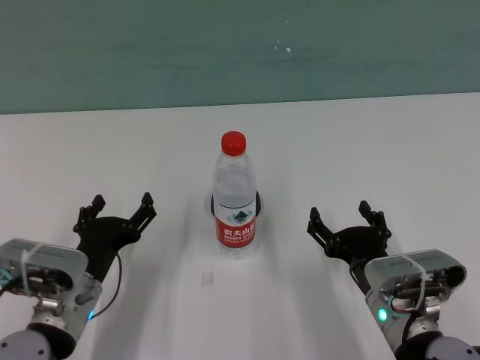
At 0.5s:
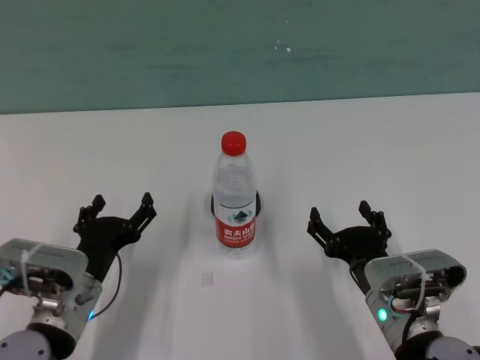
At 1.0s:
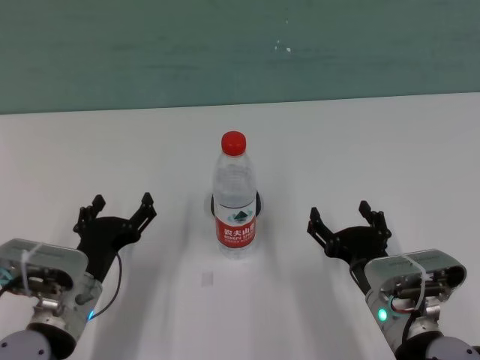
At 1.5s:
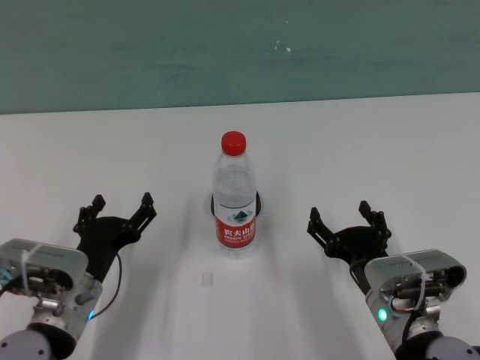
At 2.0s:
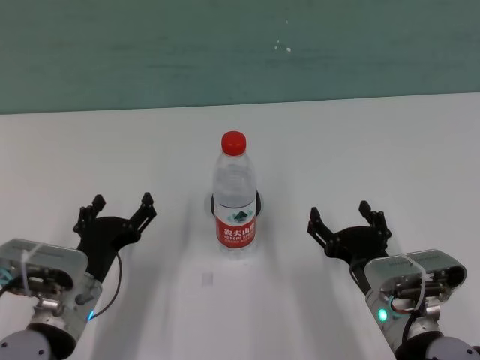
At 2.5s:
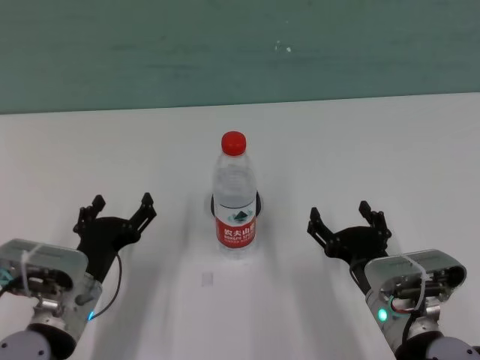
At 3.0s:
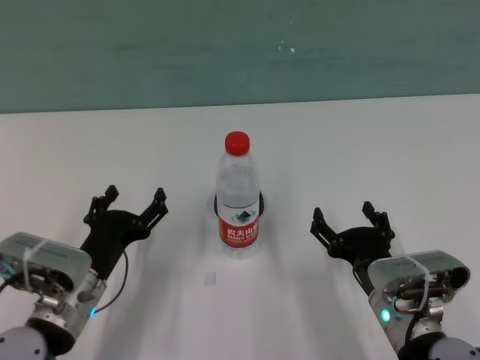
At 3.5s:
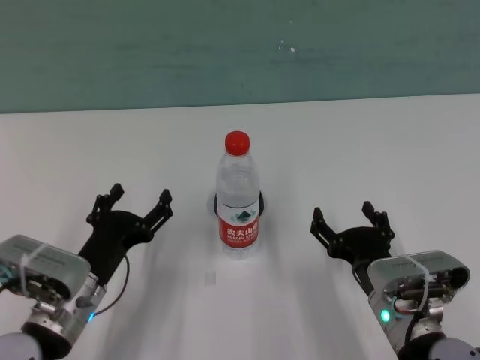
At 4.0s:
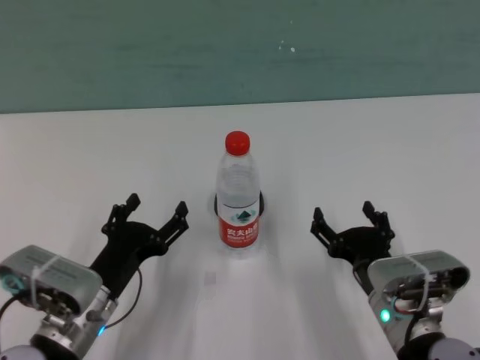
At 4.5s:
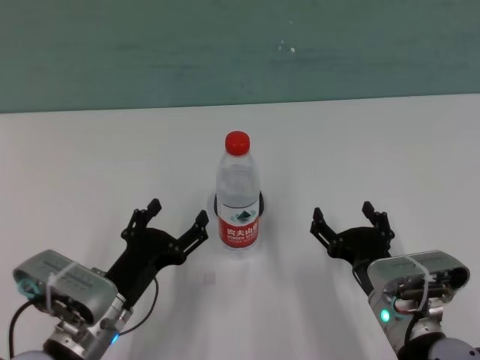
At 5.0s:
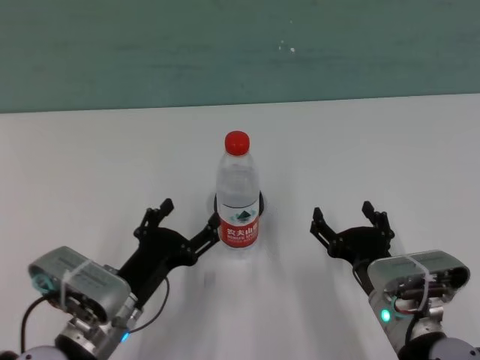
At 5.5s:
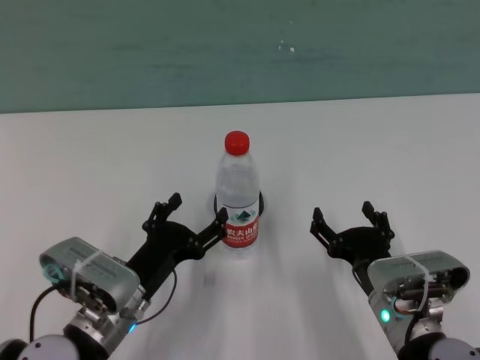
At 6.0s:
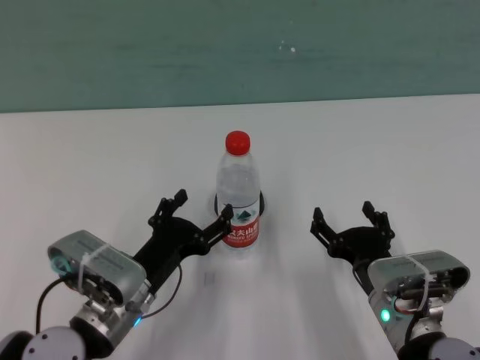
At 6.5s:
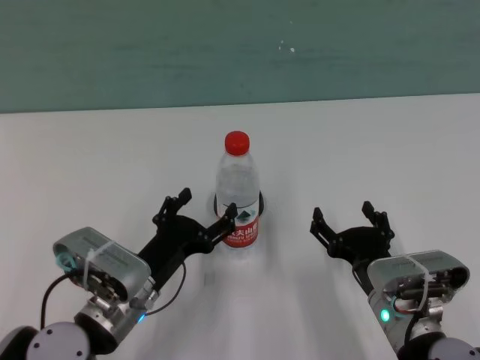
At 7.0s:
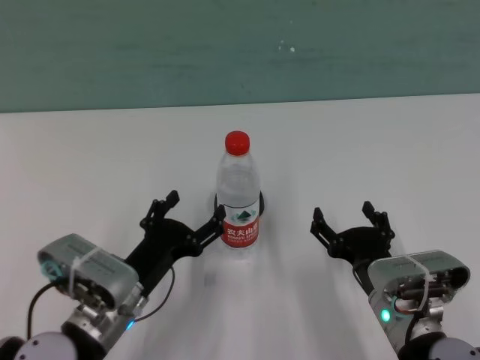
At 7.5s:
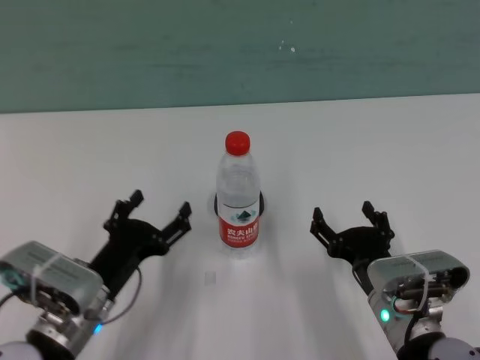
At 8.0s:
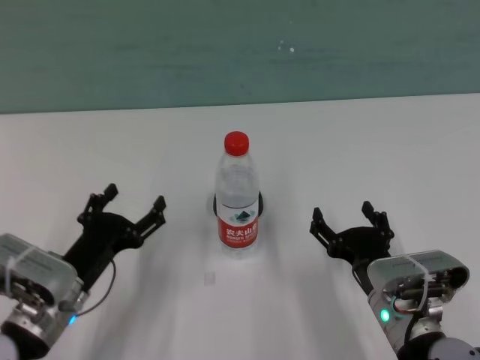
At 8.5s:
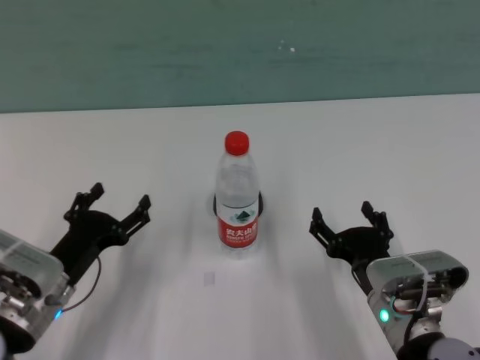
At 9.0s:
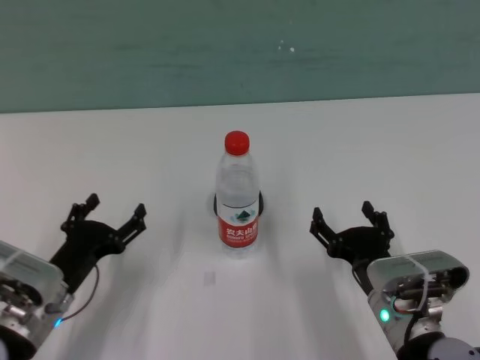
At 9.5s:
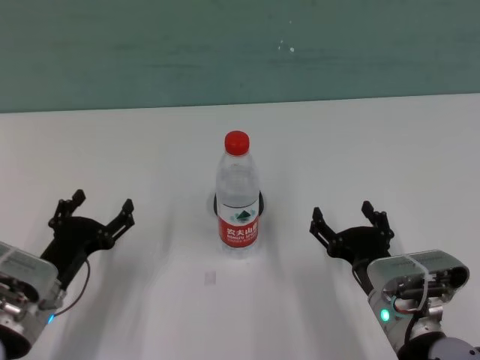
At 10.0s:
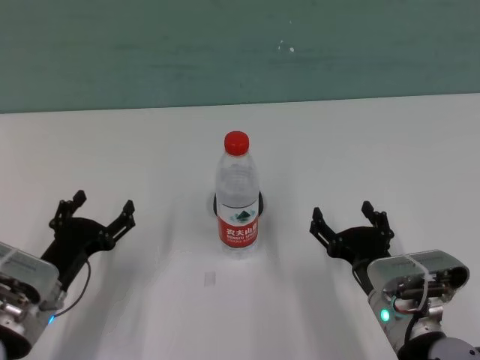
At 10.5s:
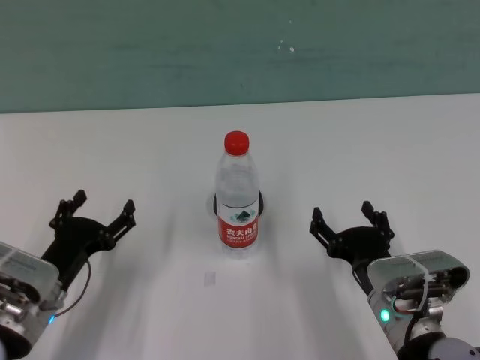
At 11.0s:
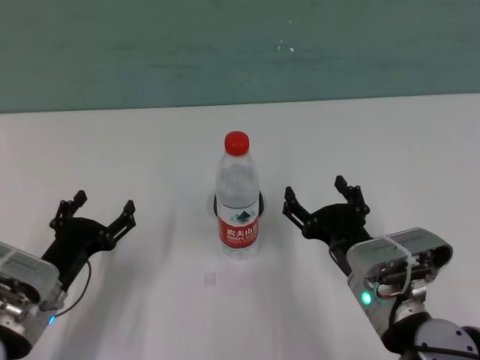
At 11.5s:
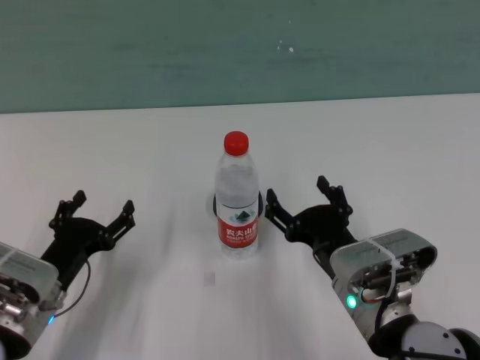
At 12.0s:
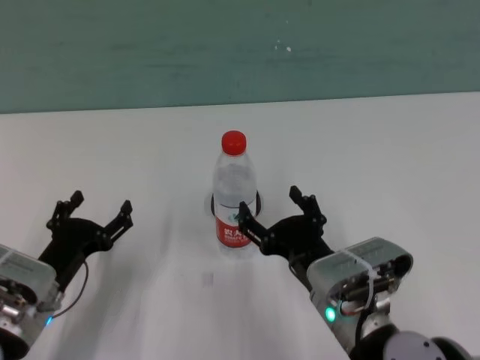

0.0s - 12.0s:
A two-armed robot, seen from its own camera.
Task of the whole recording: after removing the water bottle from the table, press the button.
Step, 0.0s - 7.0s: Touch the bottle with left gripper.

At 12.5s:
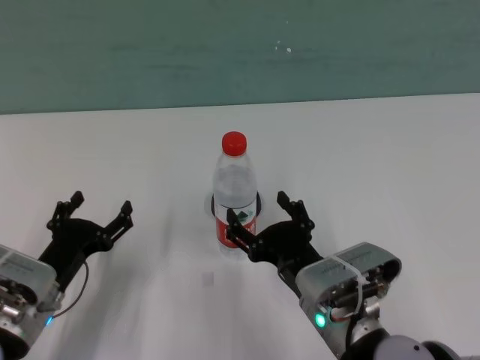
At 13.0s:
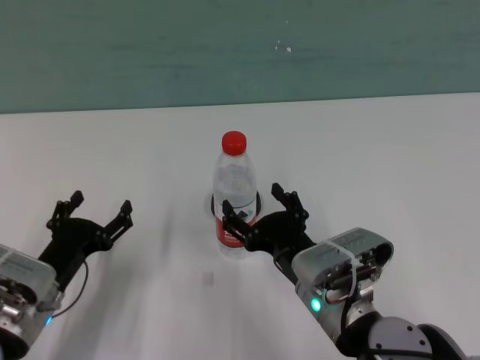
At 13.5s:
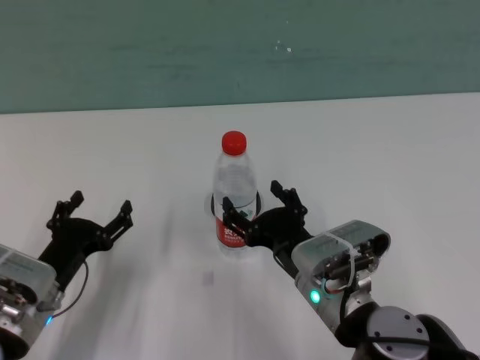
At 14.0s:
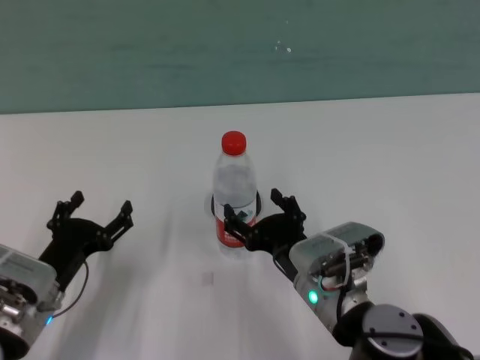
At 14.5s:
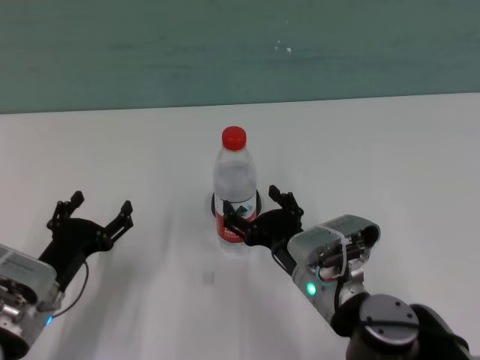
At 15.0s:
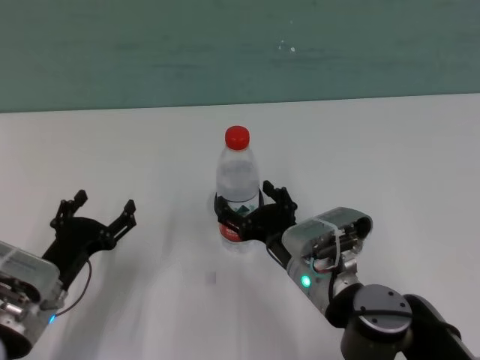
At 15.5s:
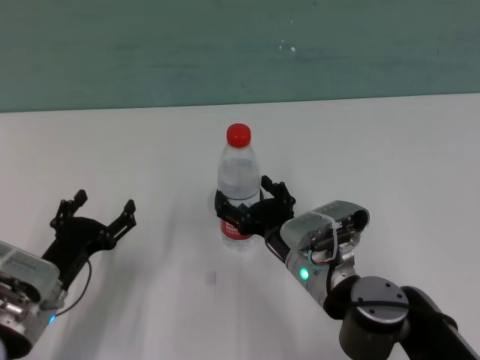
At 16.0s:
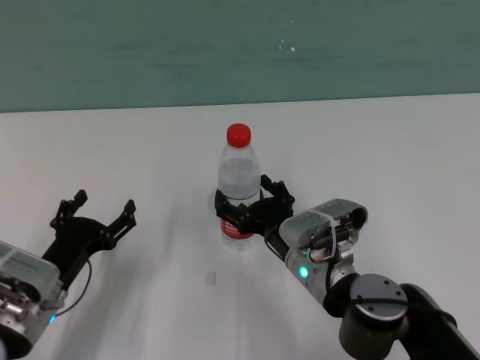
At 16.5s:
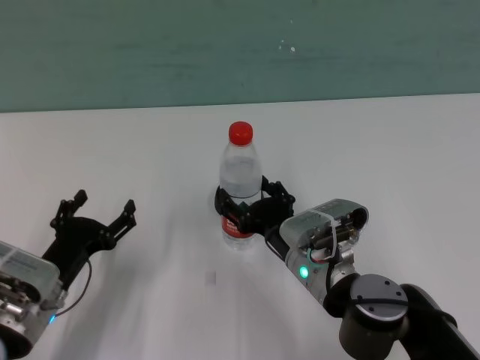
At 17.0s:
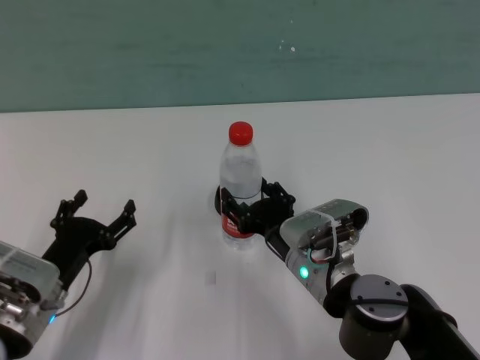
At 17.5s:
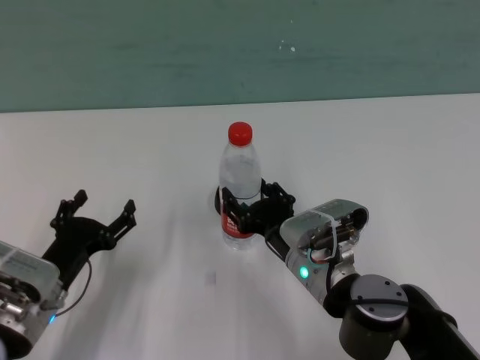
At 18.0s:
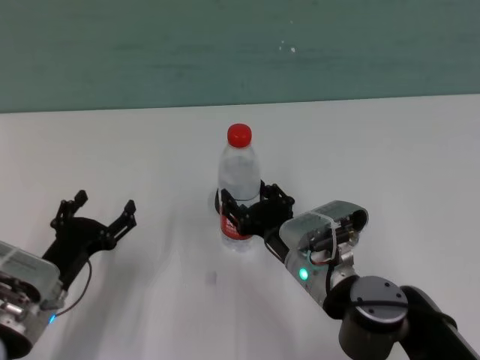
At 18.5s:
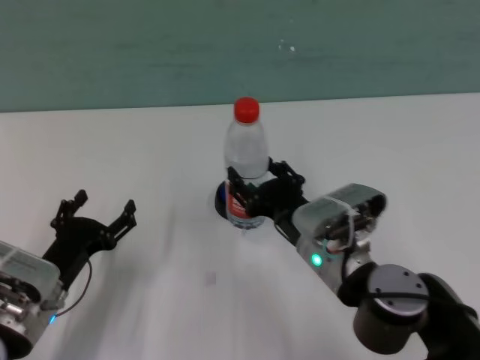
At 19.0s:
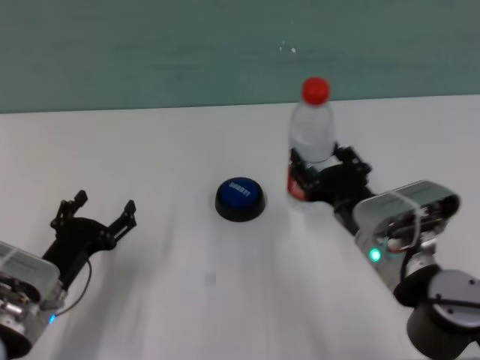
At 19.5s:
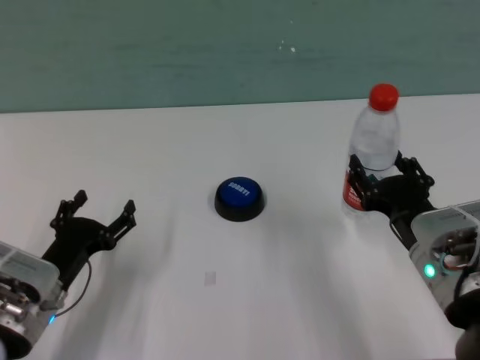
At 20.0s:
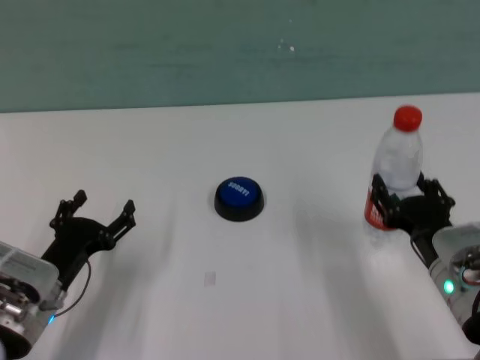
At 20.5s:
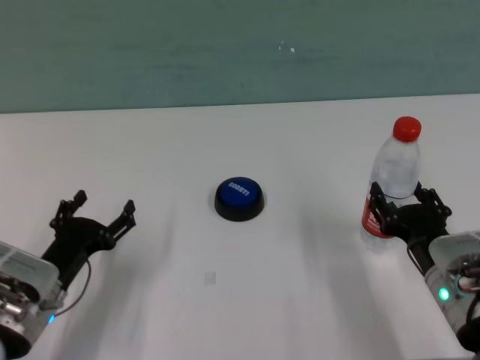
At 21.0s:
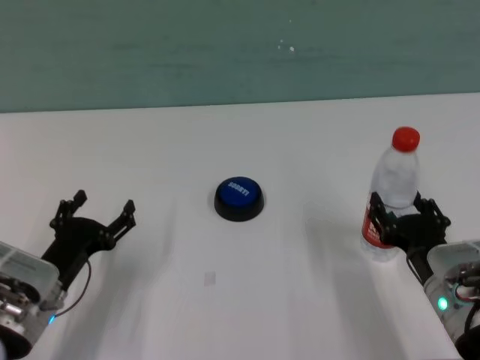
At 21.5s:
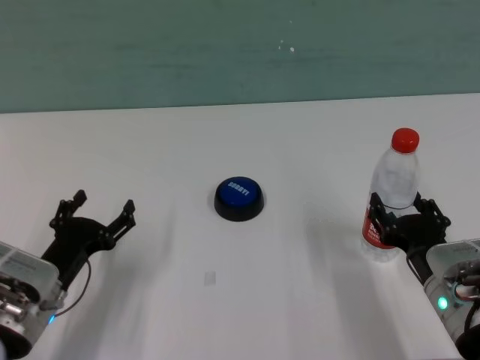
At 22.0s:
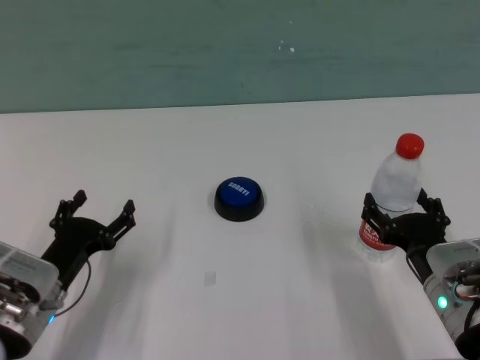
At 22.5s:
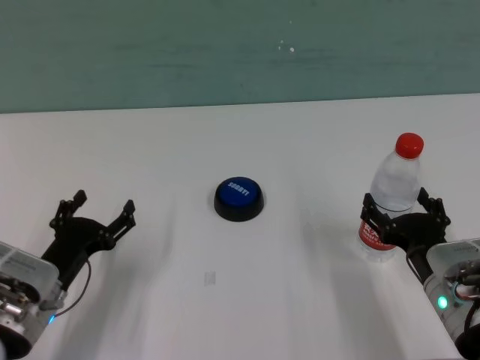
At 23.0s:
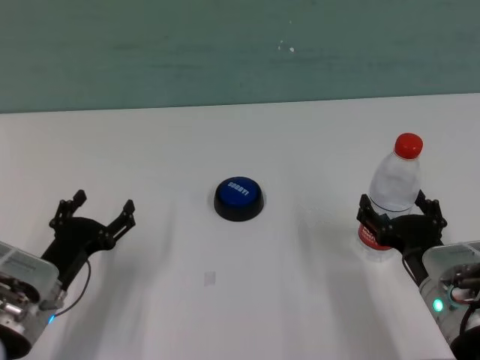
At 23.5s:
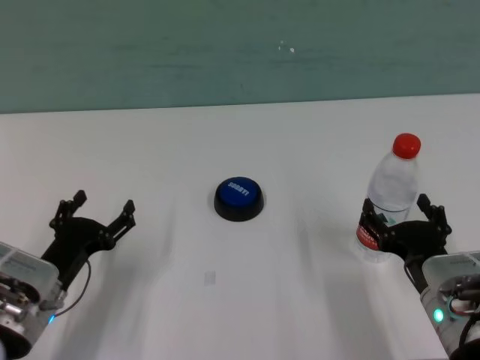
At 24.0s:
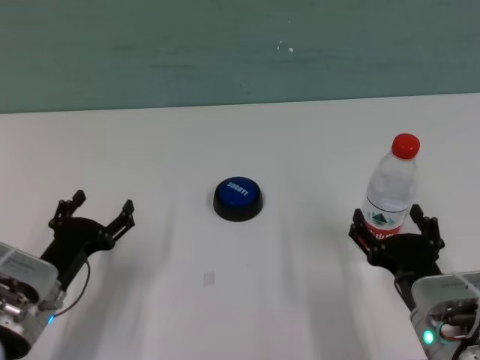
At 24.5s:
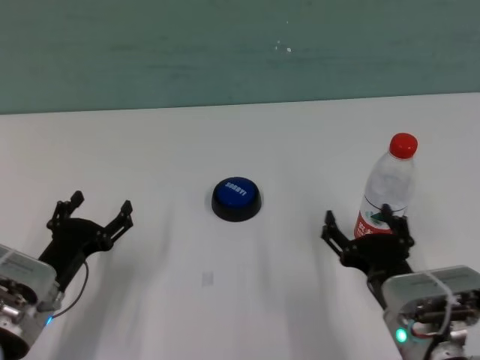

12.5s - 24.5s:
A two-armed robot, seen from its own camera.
Task of the whole recording: after removing the water bottle from the table, press the button.
Step, 12.5s - 22.0s: Move the bottle away with right gripper.

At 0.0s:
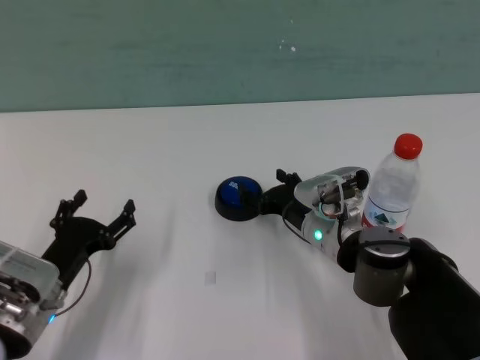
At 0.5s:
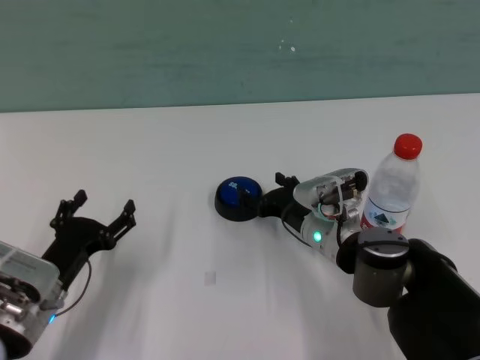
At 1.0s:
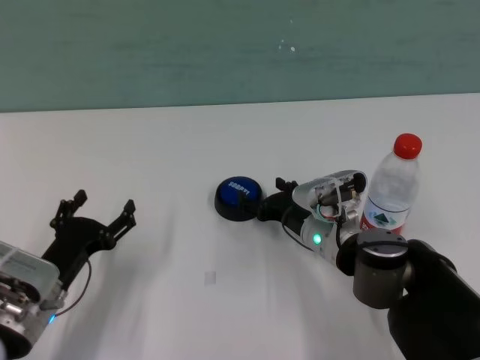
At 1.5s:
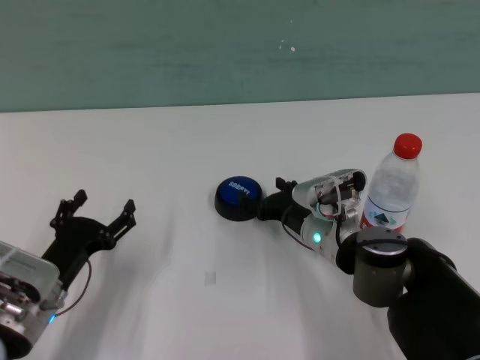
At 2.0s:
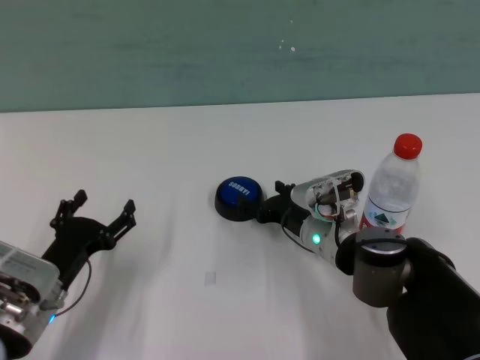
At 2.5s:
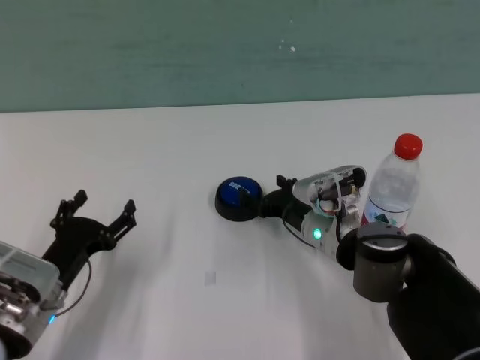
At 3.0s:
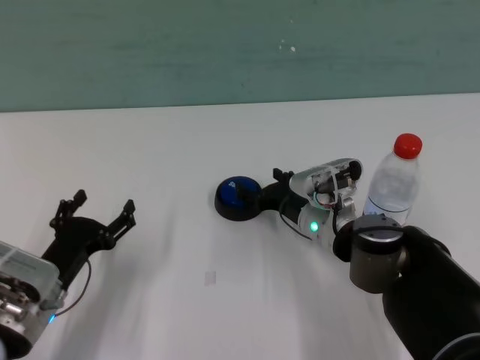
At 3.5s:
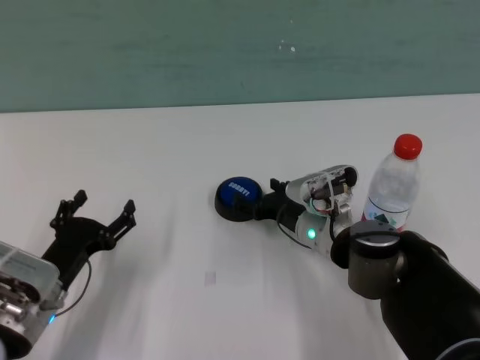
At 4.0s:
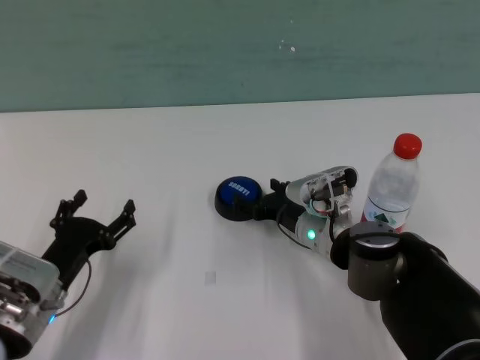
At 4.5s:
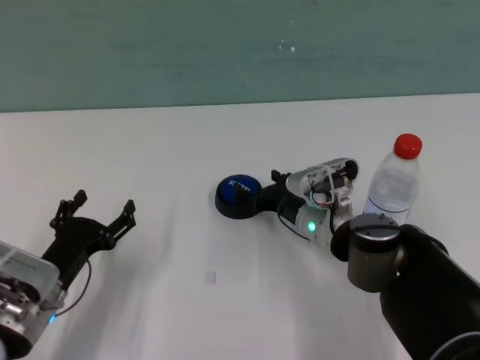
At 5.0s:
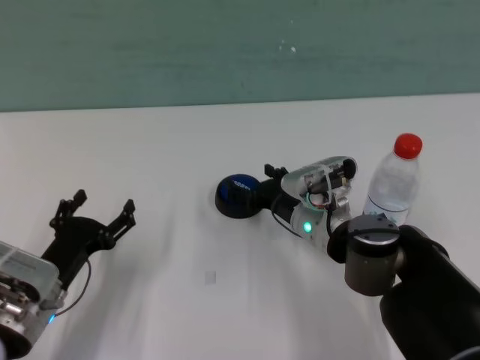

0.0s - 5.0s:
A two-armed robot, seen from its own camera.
Task of the whole recording: after removing the water bottle from the table, press the button.
Step, 0.0s - 4.5s: Press the button with right gripper.
